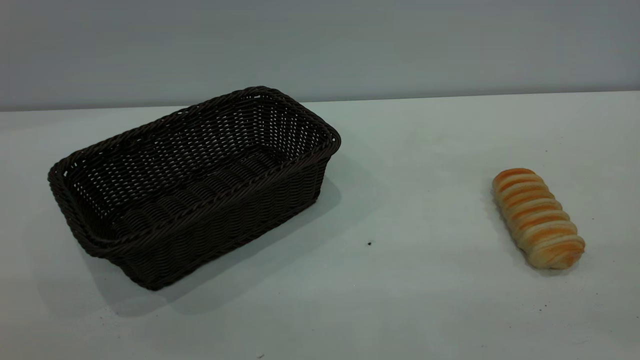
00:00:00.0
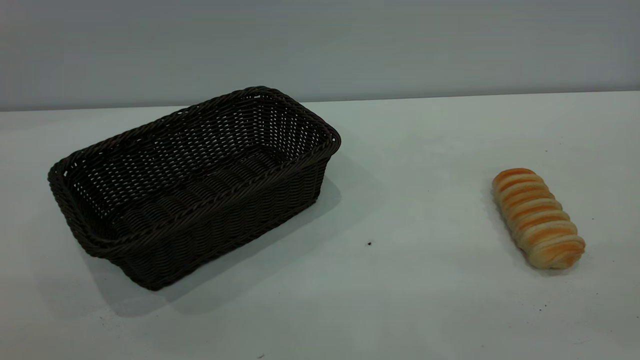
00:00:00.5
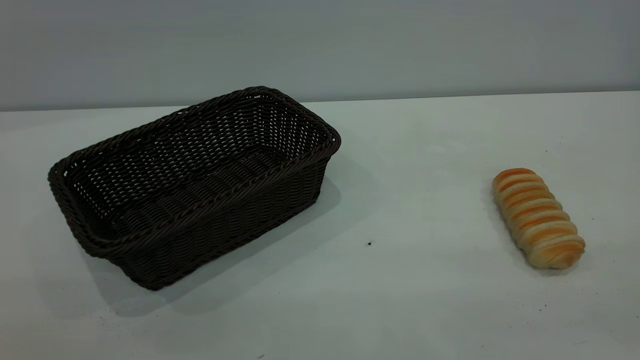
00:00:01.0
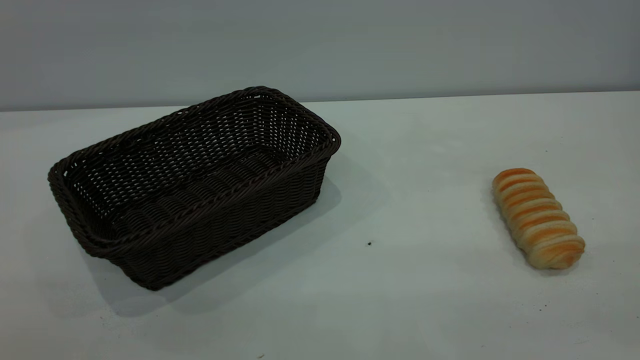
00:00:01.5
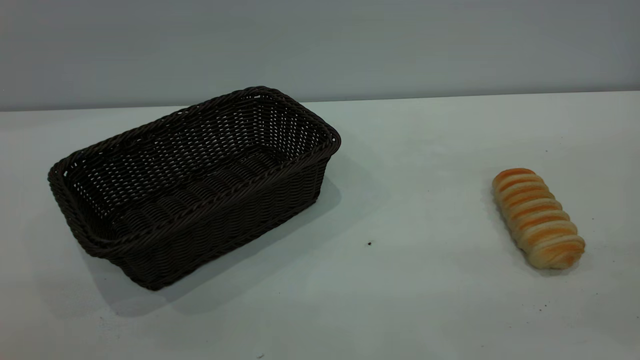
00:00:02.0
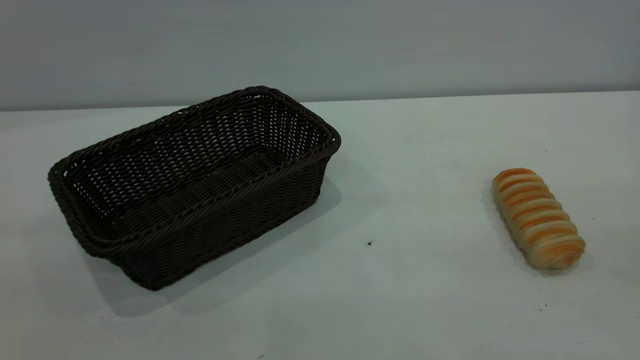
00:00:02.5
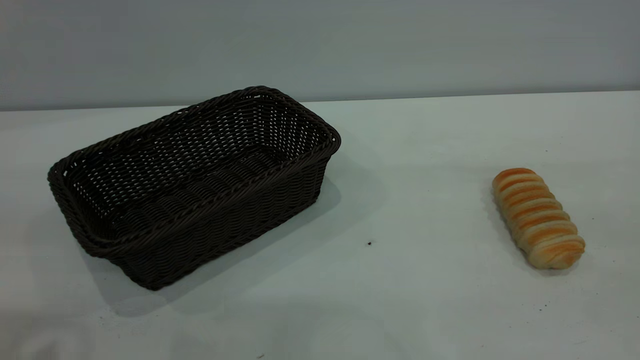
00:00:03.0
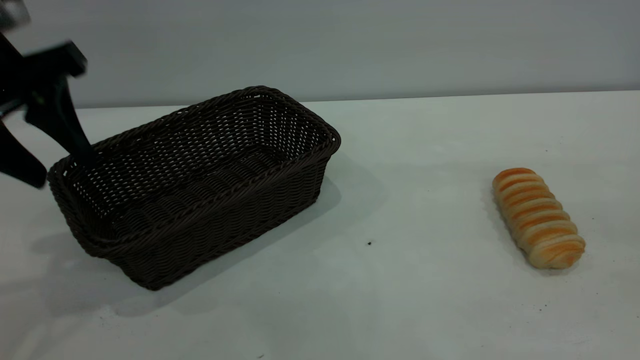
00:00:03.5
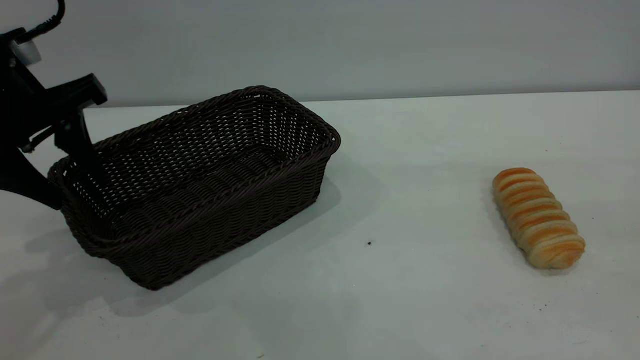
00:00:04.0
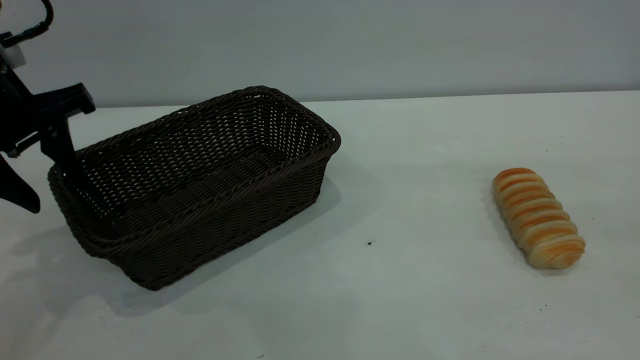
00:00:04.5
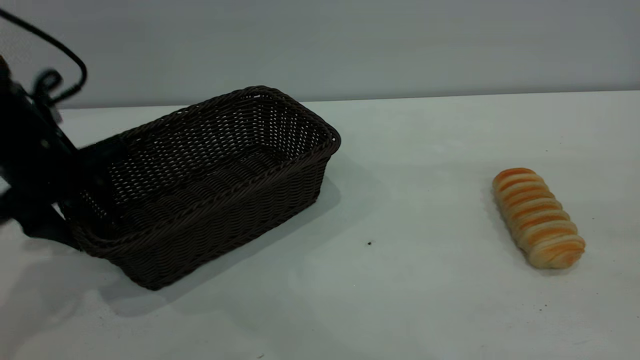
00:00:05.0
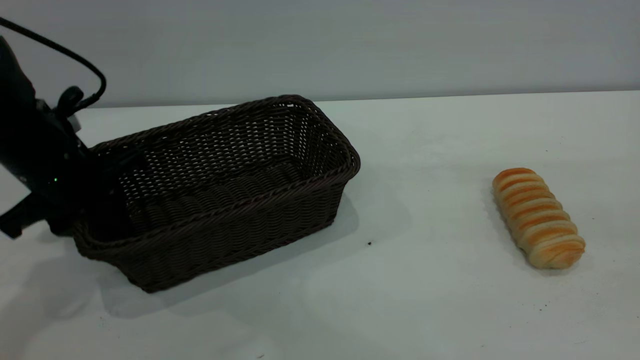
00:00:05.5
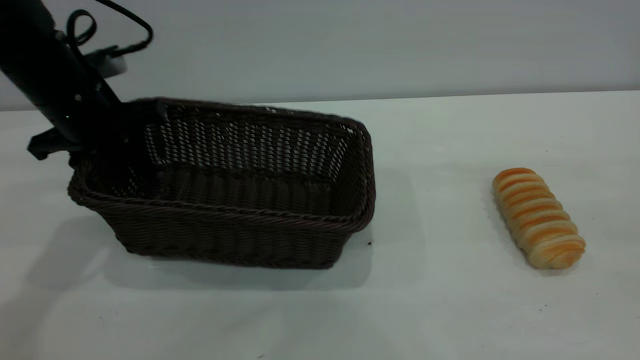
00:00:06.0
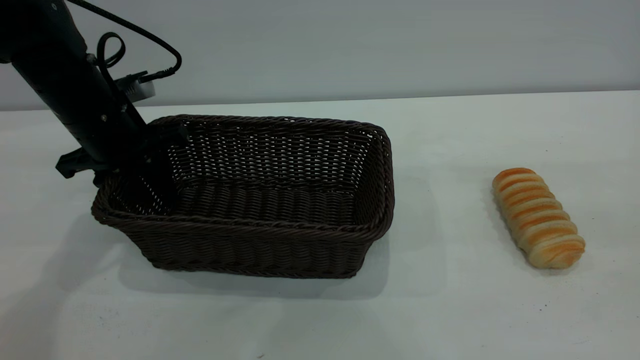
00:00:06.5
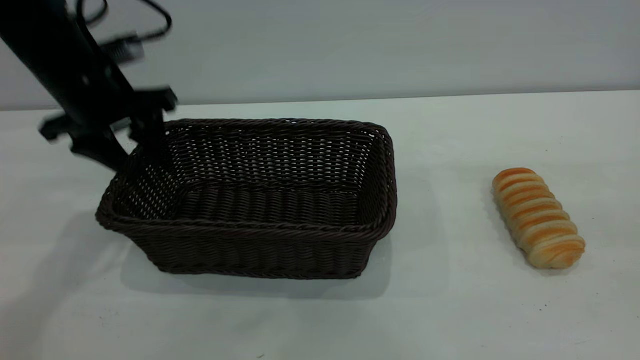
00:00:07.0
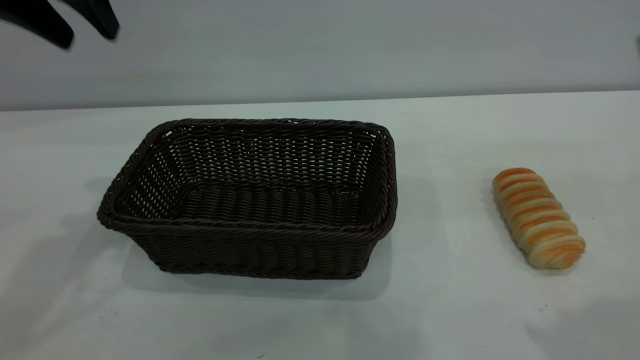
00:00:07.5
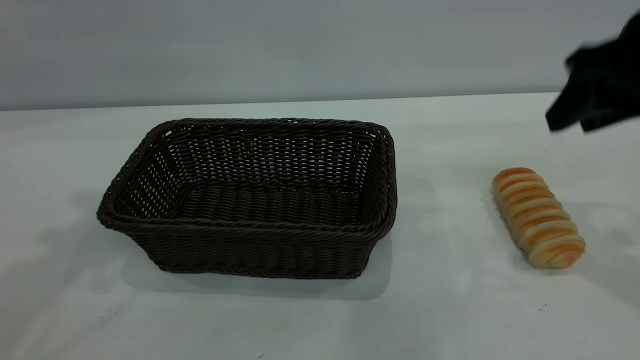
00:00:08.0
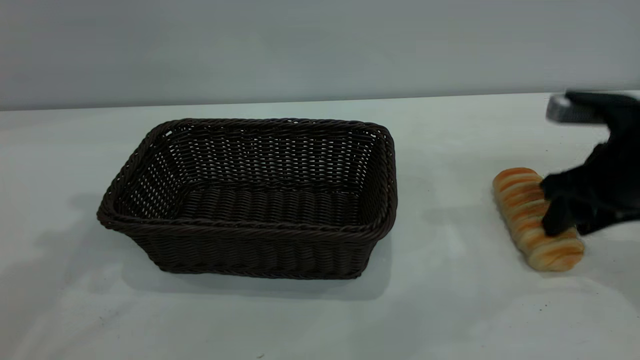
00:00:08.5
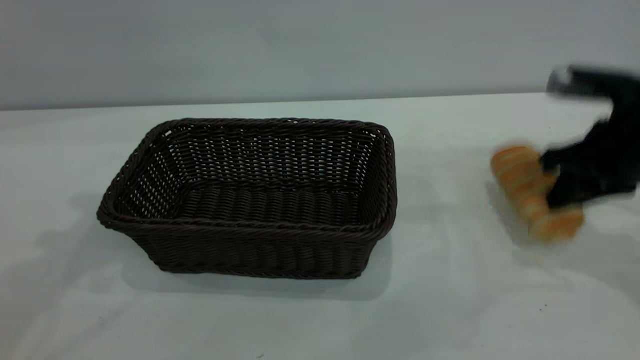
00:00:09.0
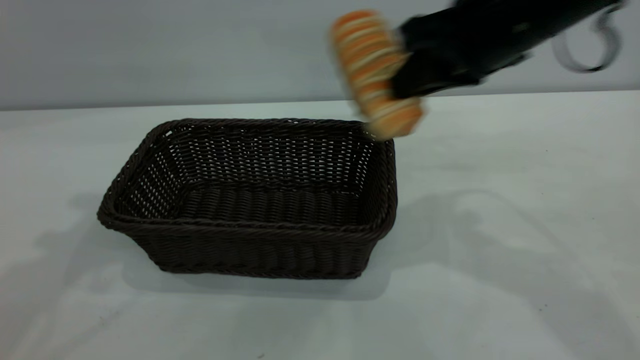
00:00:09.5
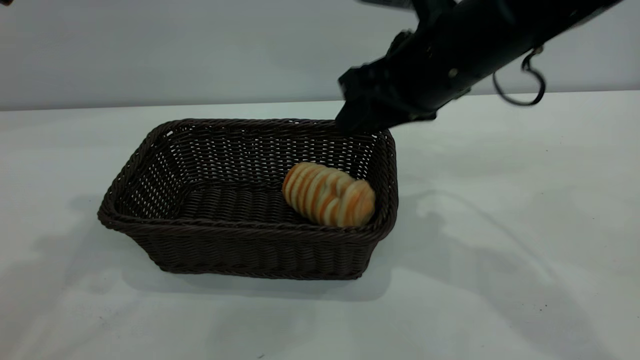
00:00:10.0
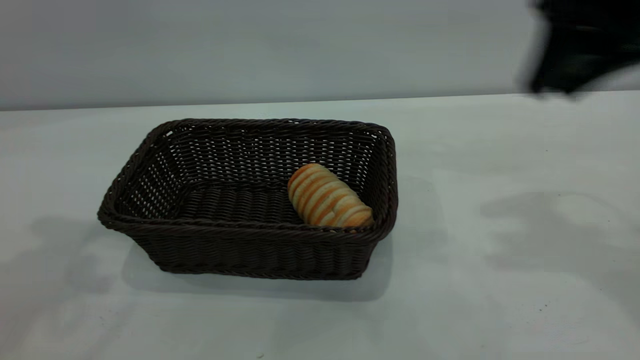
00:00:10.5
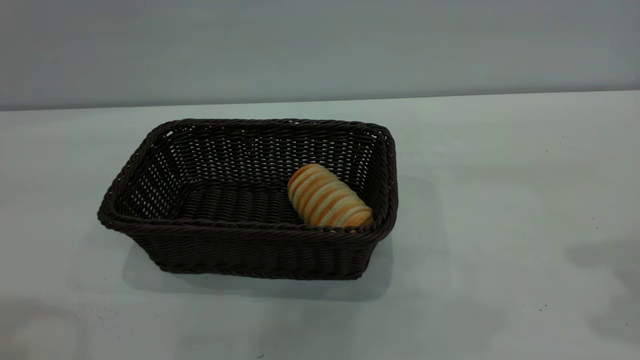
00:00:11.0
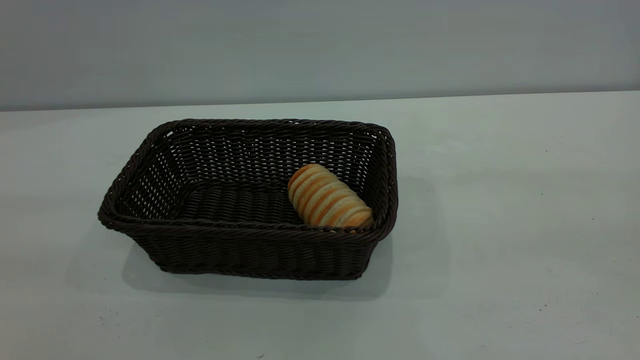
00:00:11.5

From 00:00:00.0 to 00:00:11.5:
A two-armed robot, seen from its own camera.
Task of the whole recording: One hand grasps the black basket and places it in the middle of the table, while the other hand picks up the long bread and puts it into the black basket.
Step, from 00:00:00.0 to 00:00:07.0: Move the basket to the center of view.
Step, from 00:00:09.5 to 00:00:10.0: place the bread into the basket.
From 00:00:00.0 to 00:00:02.0: The two grippers keep their place.
From 00:00:02.0 to 00:00:04.0: The left gripper shifts about 35 cm forward.
From 00:00:04.0 to 00:00:06.0: The left gripper is displaced forward and downward by about 10 cm, and closes.
From 00:00:06.0 to 00:00:07.5: The left gripper heads upward, covering approximately 15 cm, and opens its fingers. The right gripper travels forward by about 5 cm.
From 00:00:07.5 to 00:00:09.5: The right gripper moves forward, to the left and downward, approximately 20 cm, and closes its fingers; the left gripper shifts by roughly 5 cm.
From 00:00:09.5 to 00:00:11.5: The left gripper travels backward by some 25 cm; the right gripper shifts some 35 cm backward, to the right and upward, and opens.
